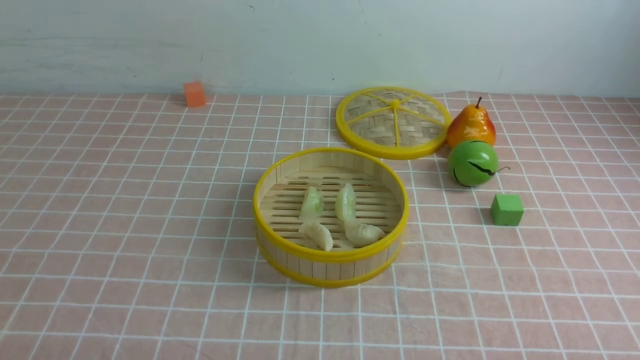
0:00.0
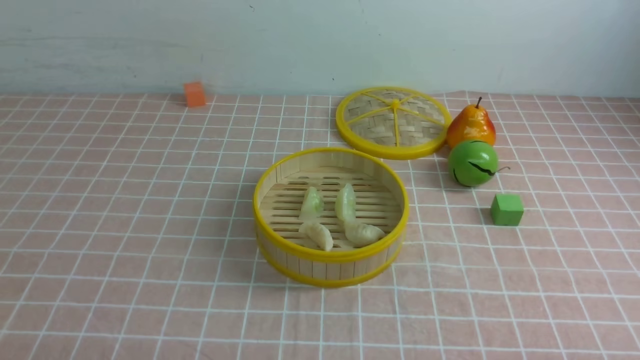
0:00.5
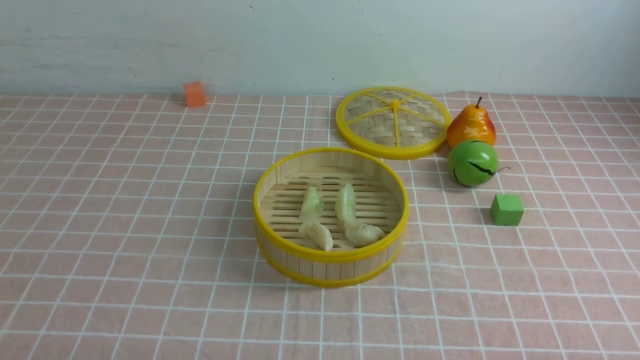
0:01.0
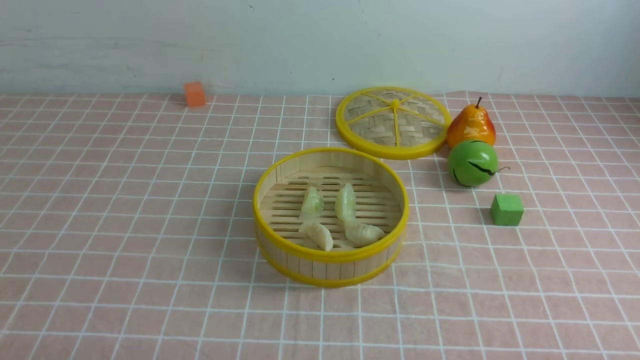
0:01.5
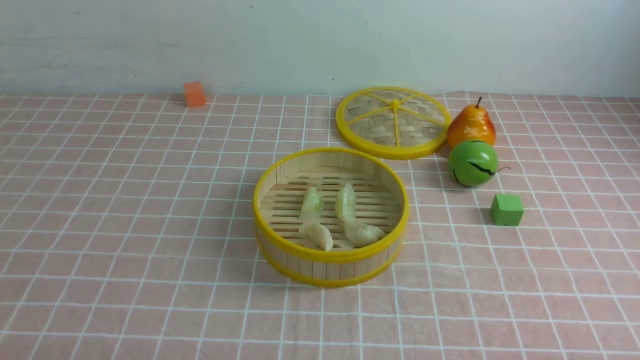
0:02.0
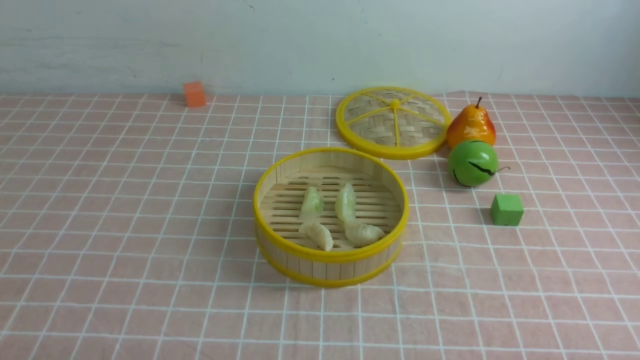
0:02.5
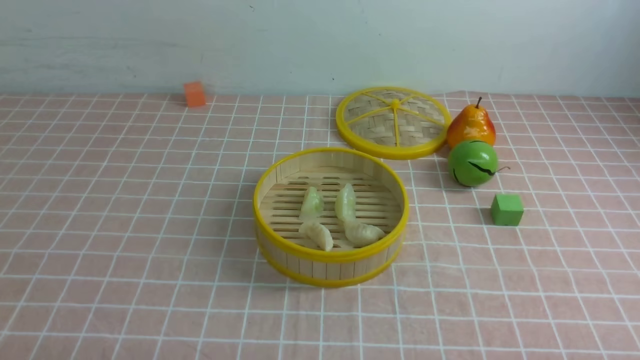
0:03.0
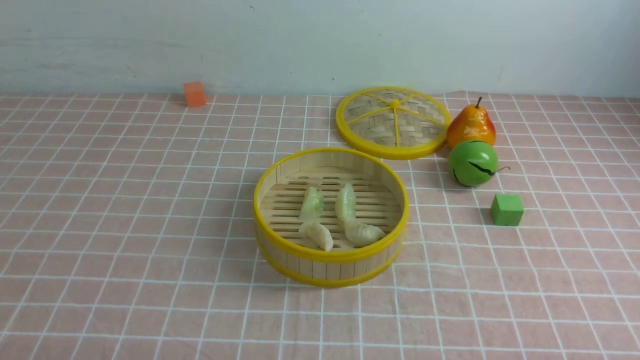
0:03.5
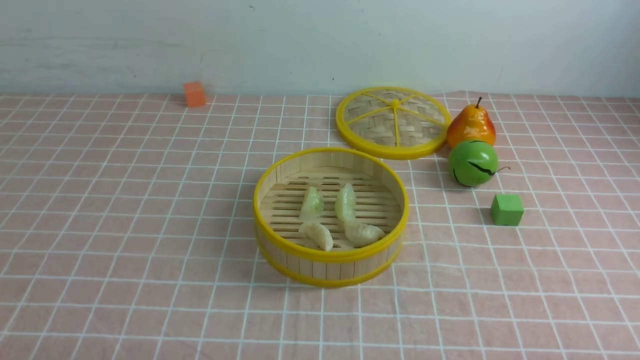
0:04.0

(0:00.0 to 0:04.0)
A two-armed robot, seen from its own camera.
Task of the whole recording: put the dumplings into the steamer on the table with the pink tablecloth.
0:00.0 - 0:04.0: The two grippers keep their place.

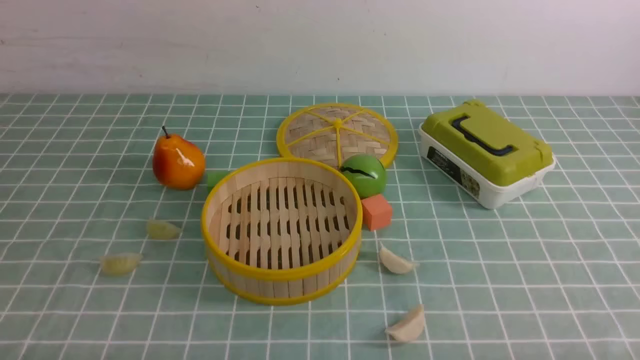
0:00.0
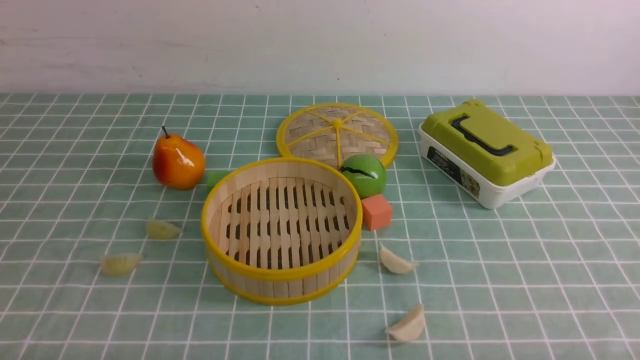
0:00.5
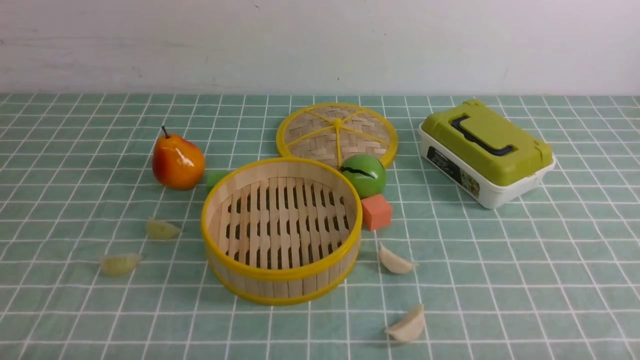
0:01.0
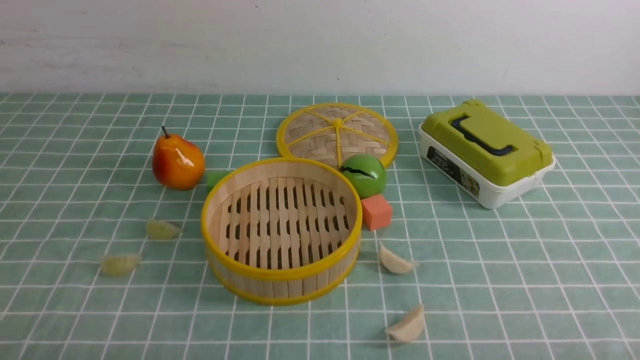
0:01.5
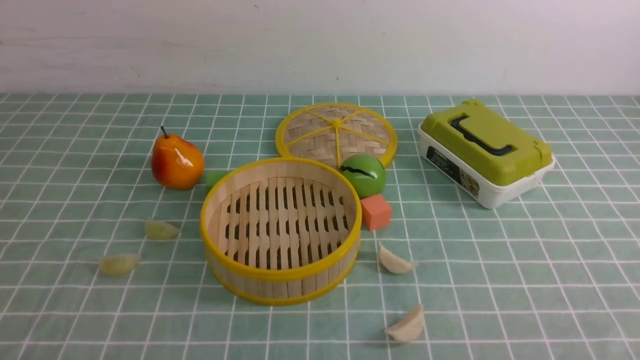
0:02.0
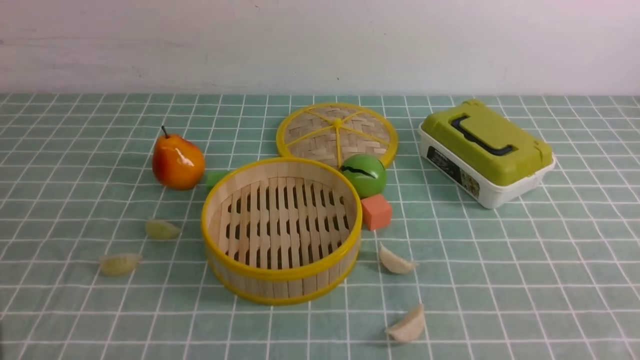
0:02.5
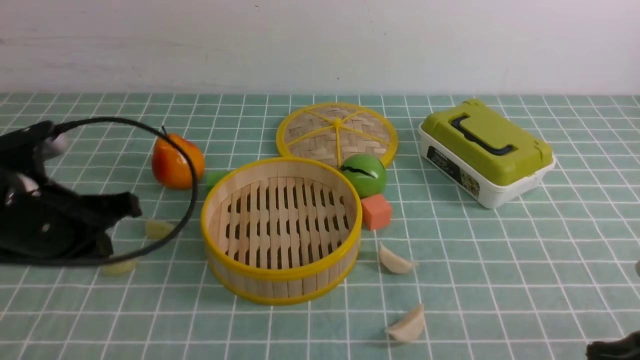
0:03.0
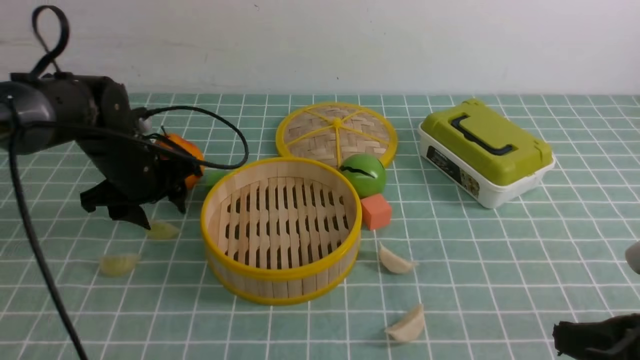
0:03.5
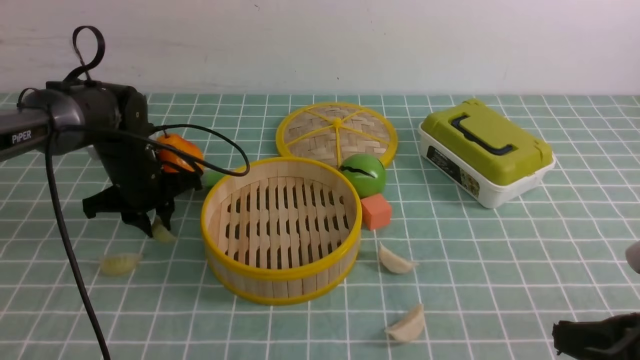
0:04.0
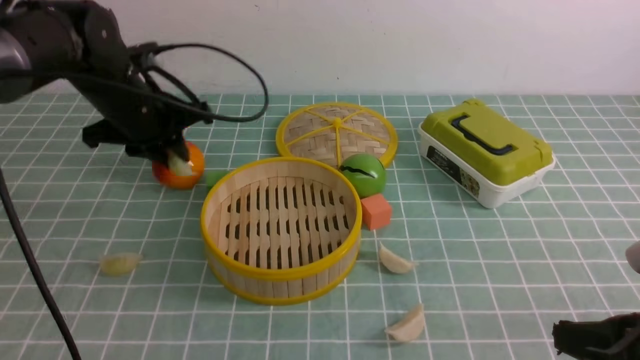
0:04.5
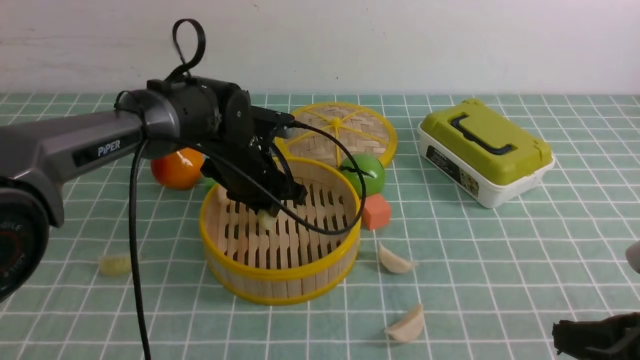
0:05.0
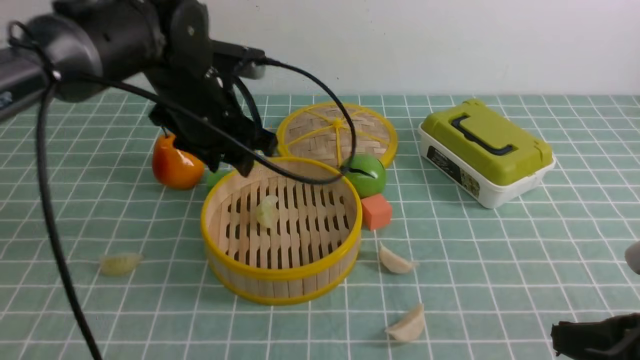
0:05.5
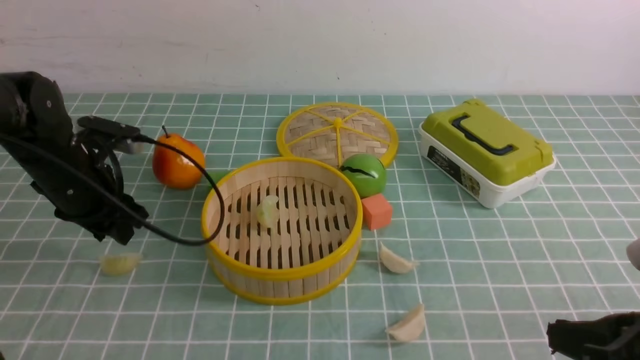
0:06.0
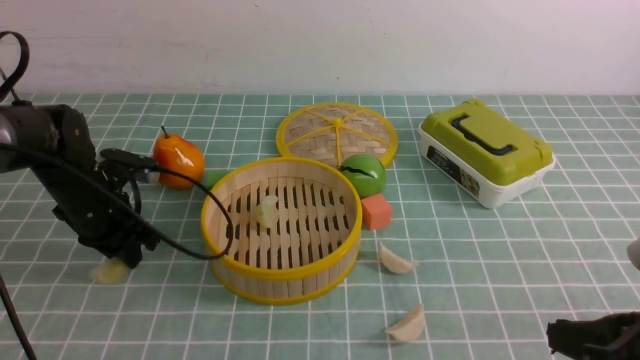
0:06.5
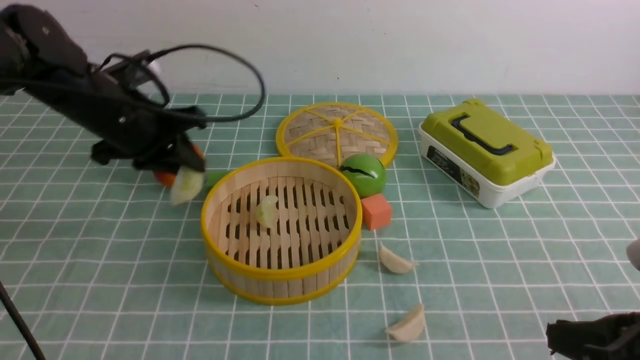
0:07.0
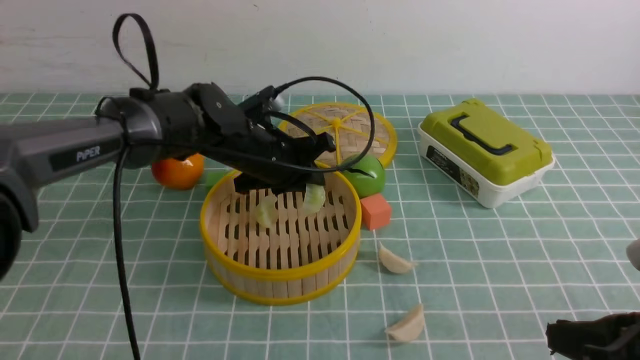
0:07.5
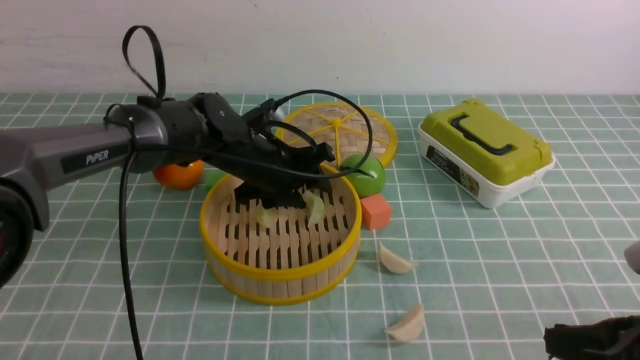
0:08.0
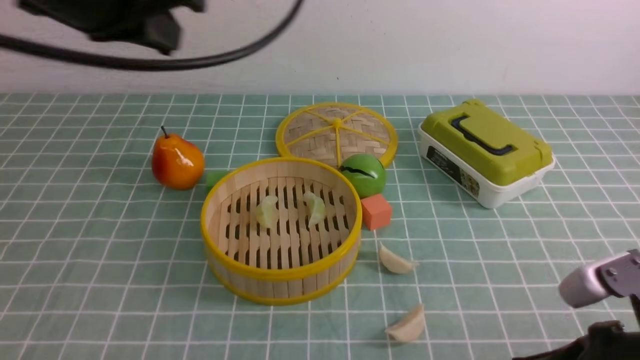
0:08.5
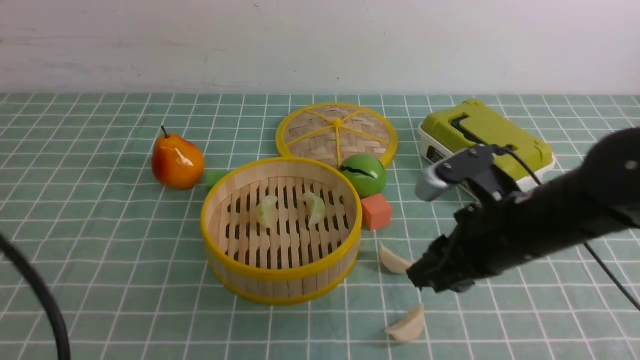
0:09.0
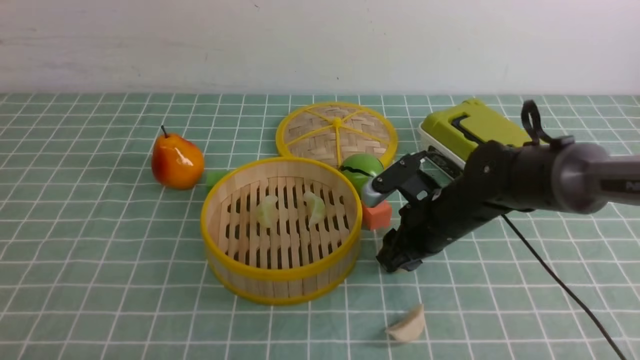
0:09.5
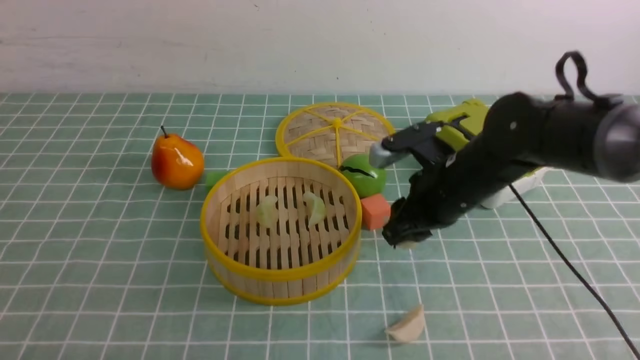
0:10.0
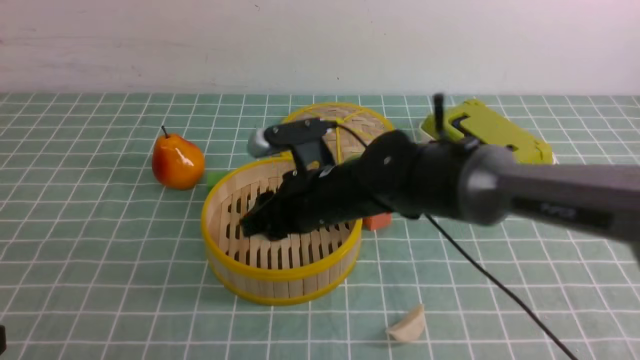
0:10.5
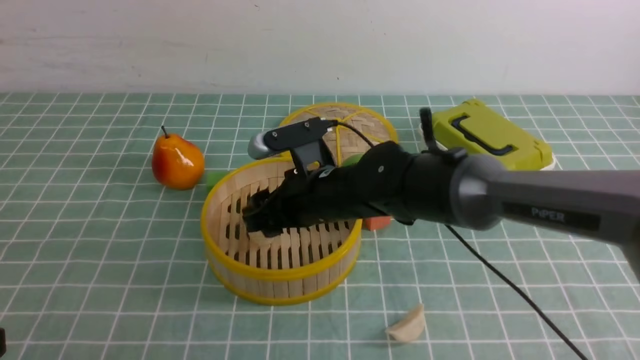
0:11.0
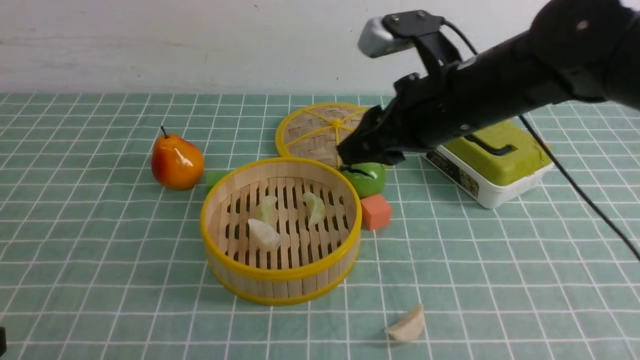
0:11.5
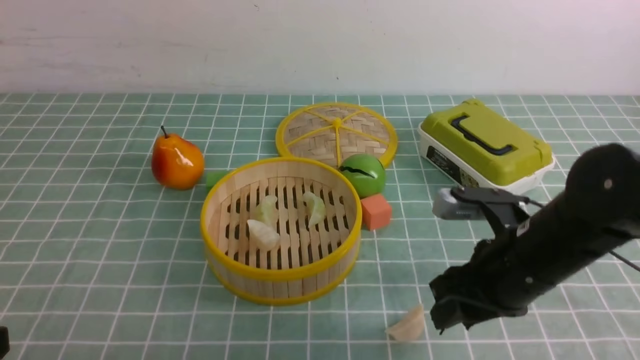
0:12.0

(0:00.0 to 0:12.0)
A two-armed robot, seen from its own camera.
Task of the whole recording: put the dumplings into the steamer on the table with the blue tablecloth.
Step, 0:00.0 - 0:04.0: use the left arm to grab a dumpling.
Step, 0:05.0 - 0:05.5: use the left arm to put the dumpling into the steamer.
Step, 0:06.0 - 0:06.5: use the left arm to grab a dumpling.
Step, 0:07.0 - 0:08.0: use the left arm to put the dumpling into the steamer.
Step, 0:08.5 - 0:10.0: use the right arm to grab a dumpling.
Step, 0:10.5 - 0:11.0: use the right arm to put the dumpling into the steamer.
0:02.0 - 0:04.0: The right gripper heads forward, covering about 10 cm; the left gripper shifts approximately 40 cm forward, and closes, then reopens.
0:04.0 - 0:06.0: The left gripper heads backward, covering about 5 cm, and travels to the right and back again, approximately 15 cm each way.
0:06.0 - 0:08.0: The left gripper goes some 20 cm to the right, and closes, then opens again.
0:08.0 - 0:10.0: The right gripper heads forward and to the left, covering about 25 cm, and opens up. The left gripper travels backward and to the left by roughly 40 cm, and closes its fingers.
0:10.0 - 0:12.0: The right gripper heads backward, covering some 10 cm, and goes to the left and returns, roughly 10 cm each way.

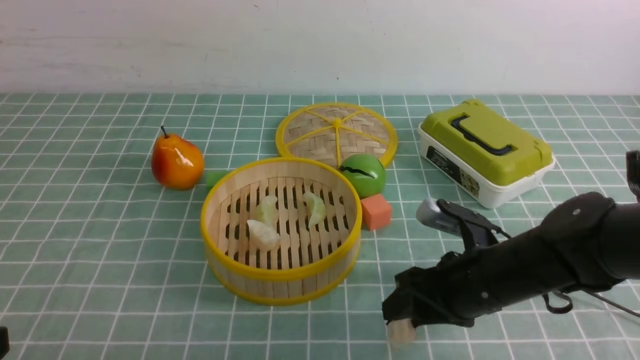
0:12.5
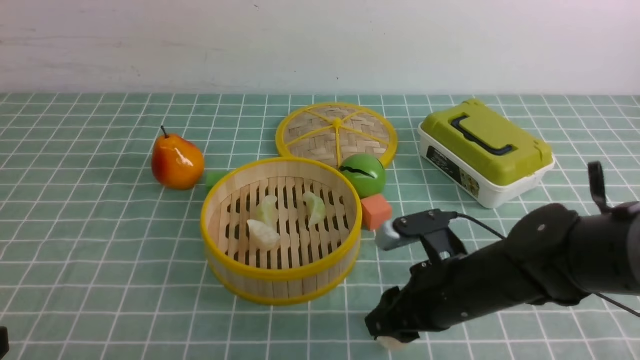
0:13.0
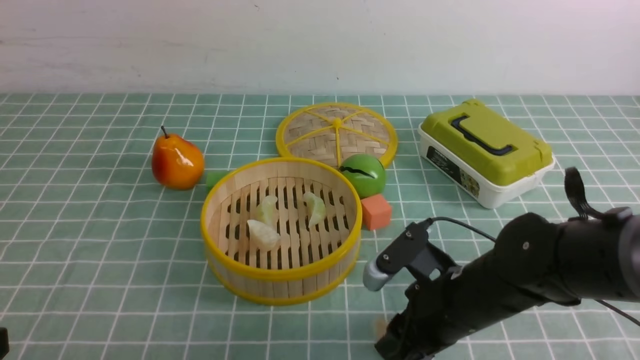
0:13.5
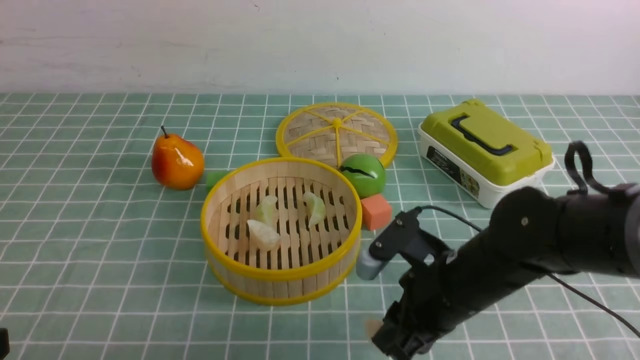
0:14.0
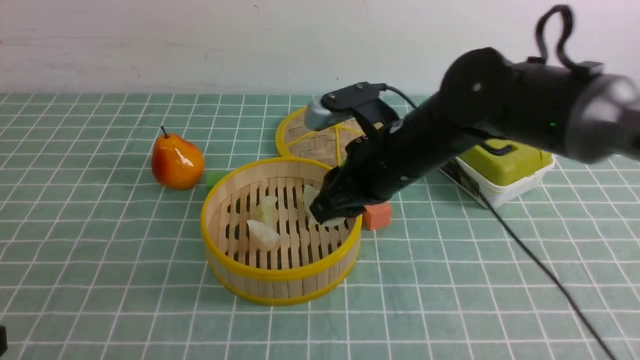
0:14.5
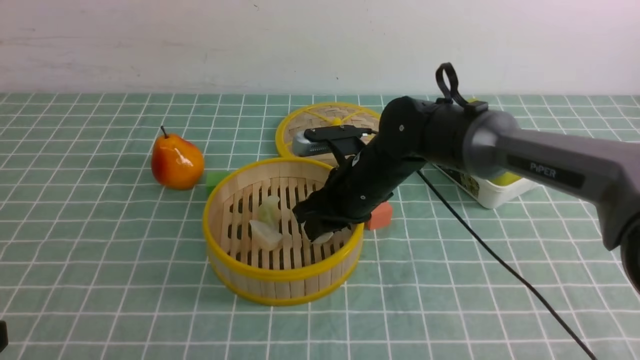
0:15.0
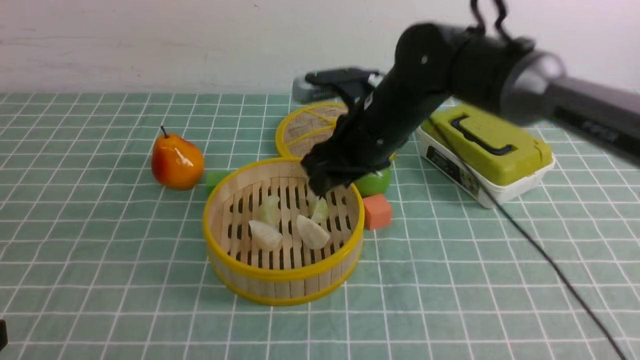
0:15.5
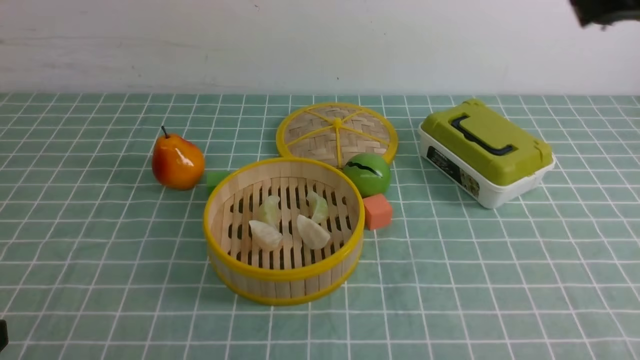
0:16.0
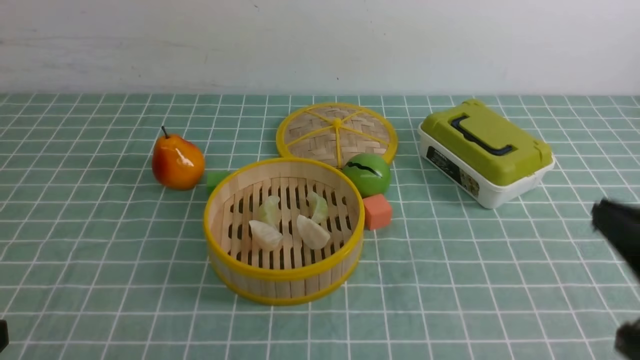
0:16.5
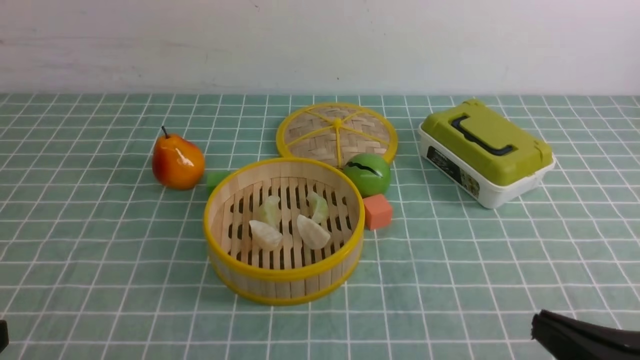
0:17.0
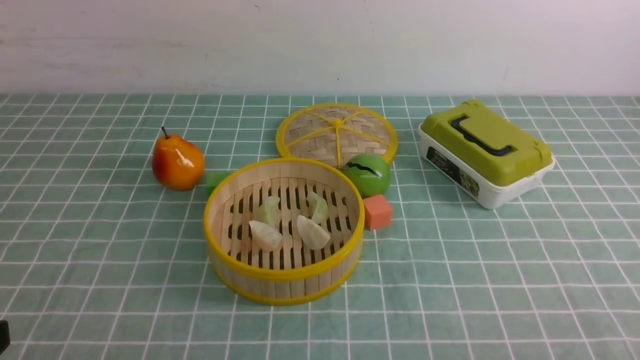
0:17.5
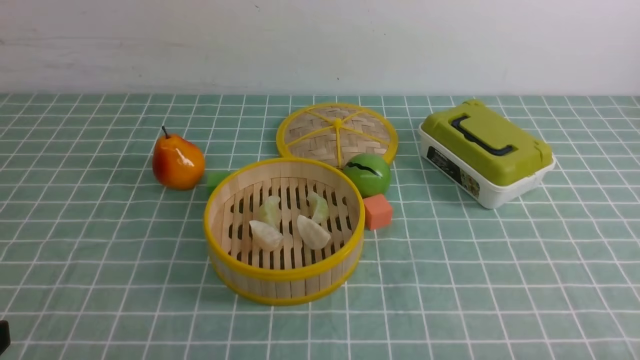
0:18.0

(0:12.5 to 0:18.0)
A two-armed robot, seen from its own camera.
Task of the whole recording: put the dumplings into the steamer on the table with the blue tablecloth.
Step, 0:12.5 - 0:14.0: use the right arm to grab a dumpling.
Step, 0:14.5 - 0:15.0: use the right arm to put the dumpling into the steamer.
0:12.5 - 0:14.5: The right gripper moves to the left, upward and forward, about 15 cm.
0:14.5 - 0:16.0: The right gripper goes some 30 cm upward, to the right and backward, and closes.
0:16.0 - 0:18.0: The right gripper shifts some 35 cm downward and backward.
